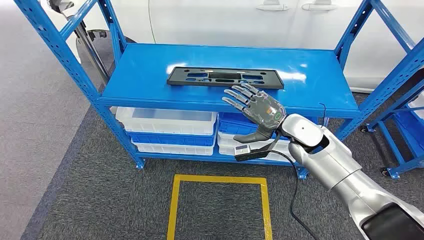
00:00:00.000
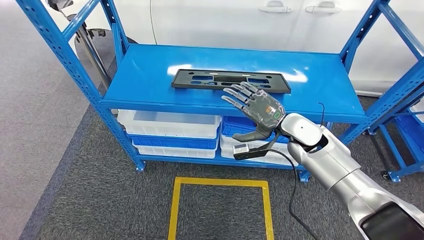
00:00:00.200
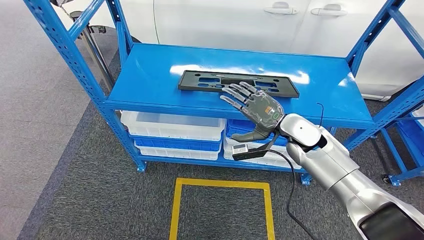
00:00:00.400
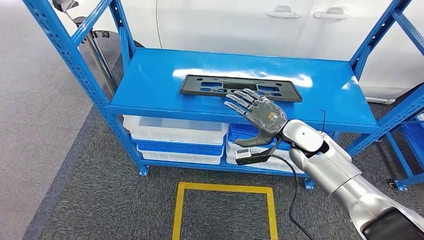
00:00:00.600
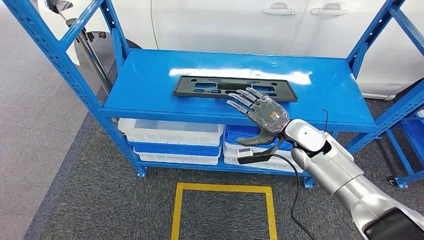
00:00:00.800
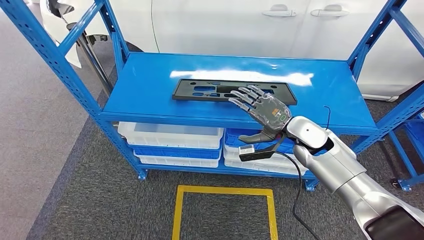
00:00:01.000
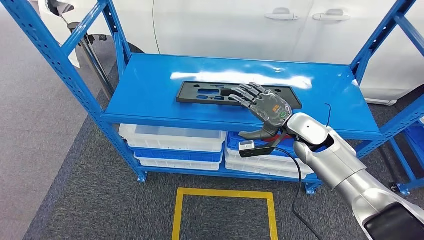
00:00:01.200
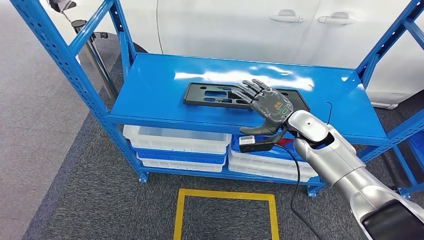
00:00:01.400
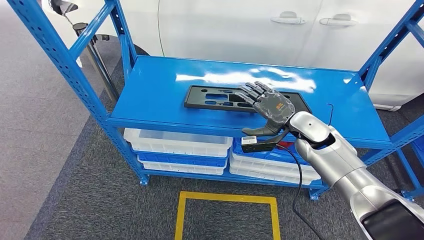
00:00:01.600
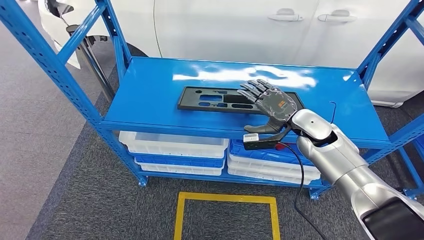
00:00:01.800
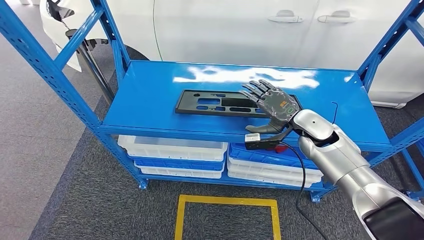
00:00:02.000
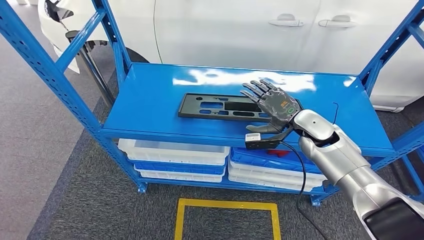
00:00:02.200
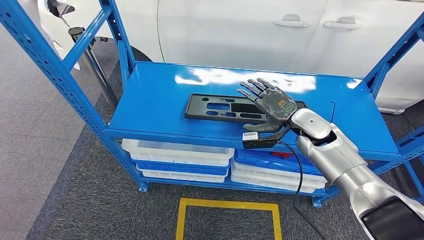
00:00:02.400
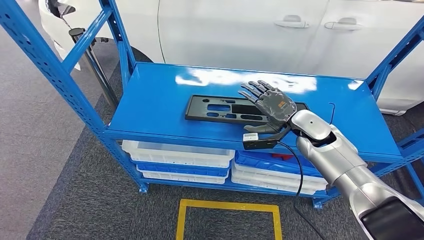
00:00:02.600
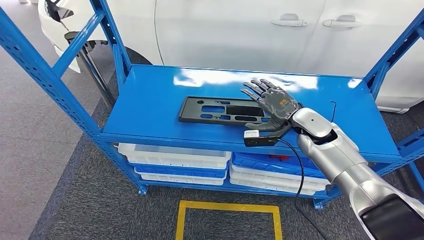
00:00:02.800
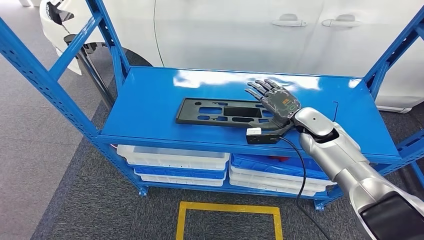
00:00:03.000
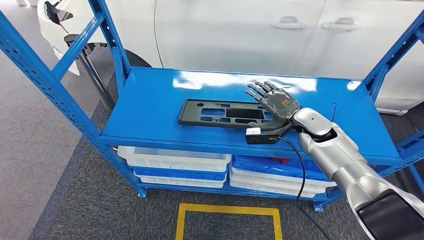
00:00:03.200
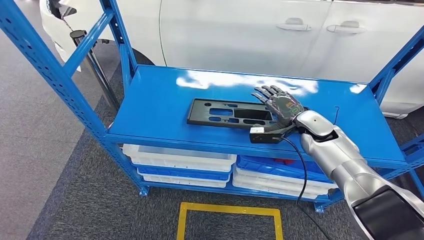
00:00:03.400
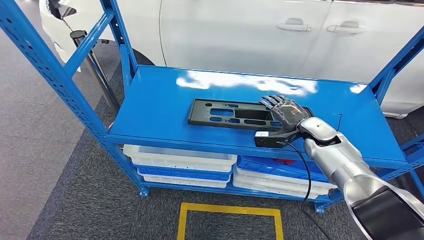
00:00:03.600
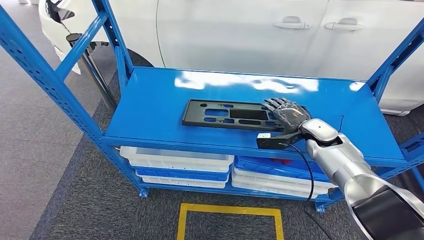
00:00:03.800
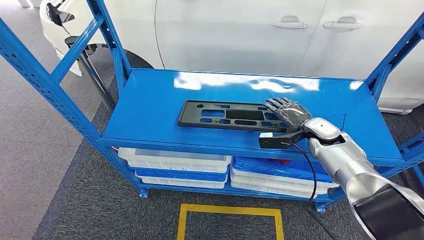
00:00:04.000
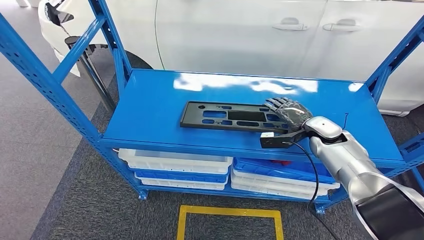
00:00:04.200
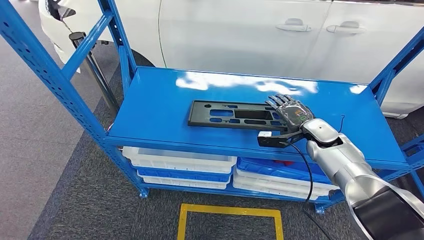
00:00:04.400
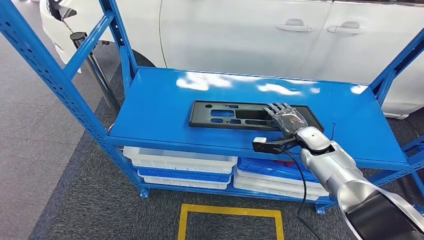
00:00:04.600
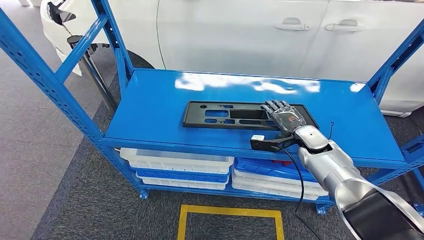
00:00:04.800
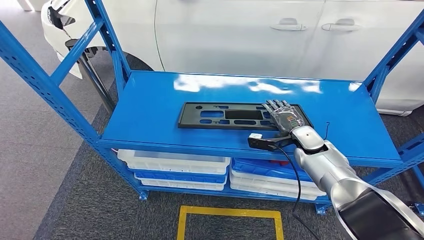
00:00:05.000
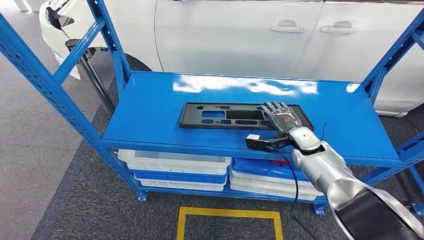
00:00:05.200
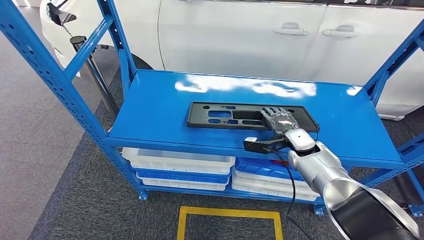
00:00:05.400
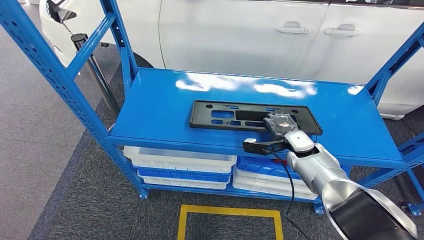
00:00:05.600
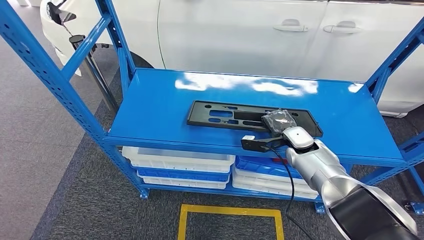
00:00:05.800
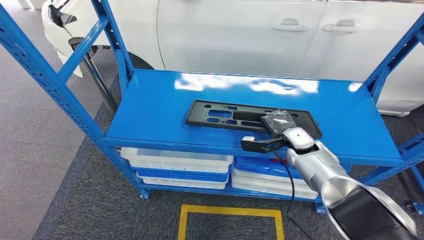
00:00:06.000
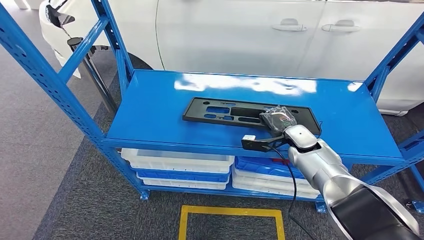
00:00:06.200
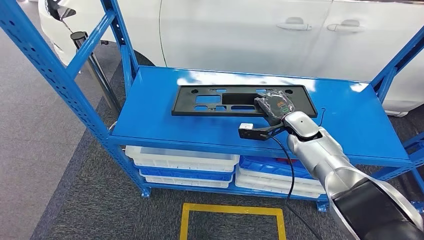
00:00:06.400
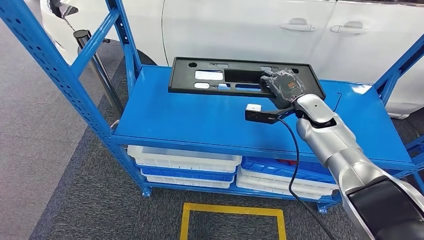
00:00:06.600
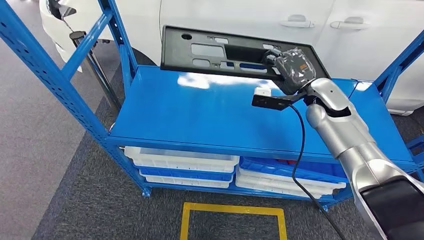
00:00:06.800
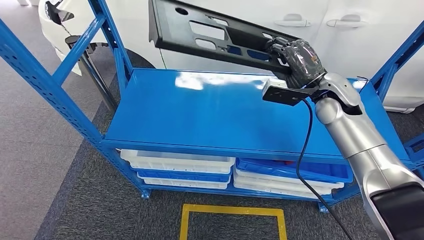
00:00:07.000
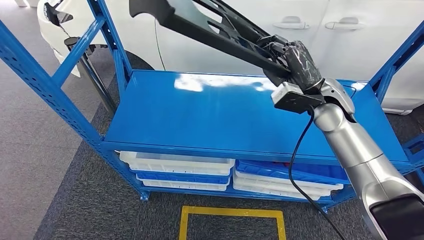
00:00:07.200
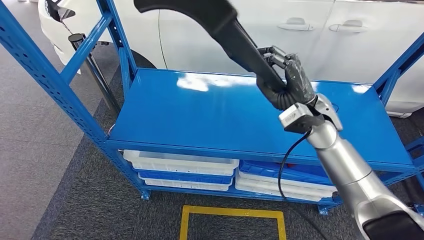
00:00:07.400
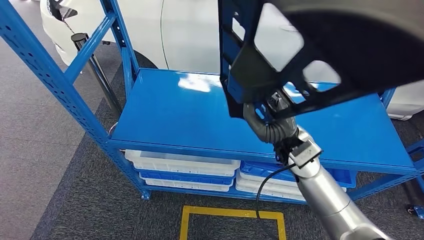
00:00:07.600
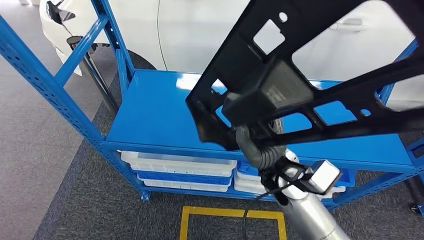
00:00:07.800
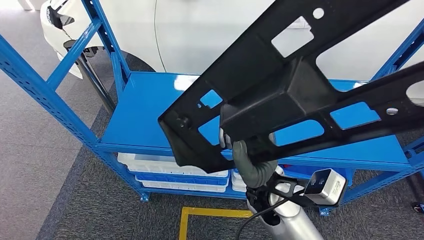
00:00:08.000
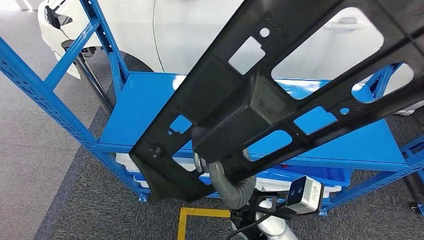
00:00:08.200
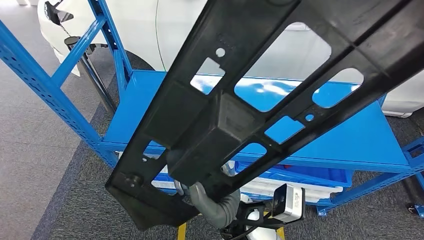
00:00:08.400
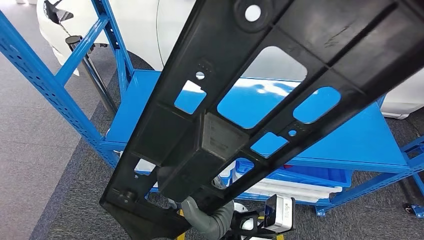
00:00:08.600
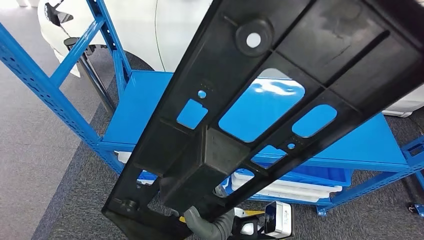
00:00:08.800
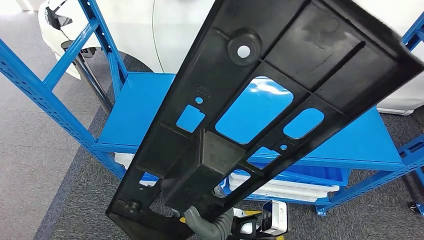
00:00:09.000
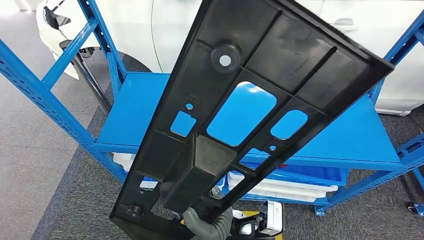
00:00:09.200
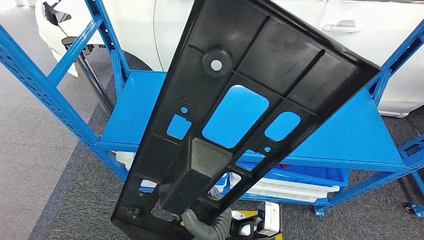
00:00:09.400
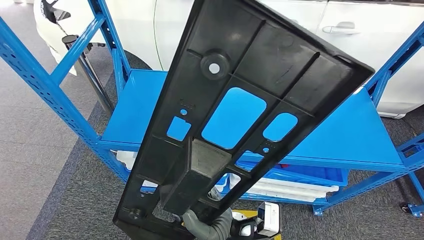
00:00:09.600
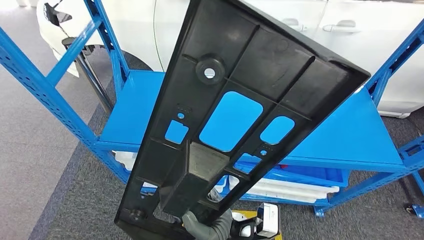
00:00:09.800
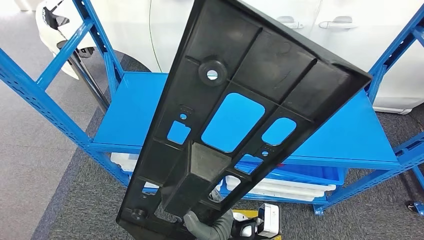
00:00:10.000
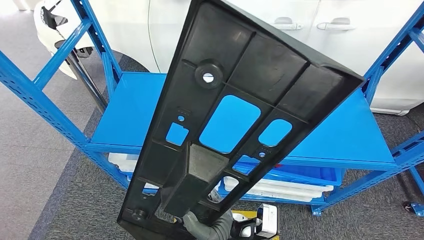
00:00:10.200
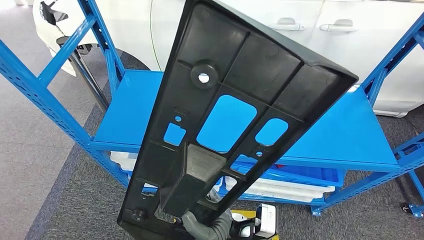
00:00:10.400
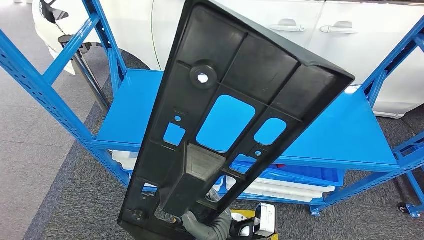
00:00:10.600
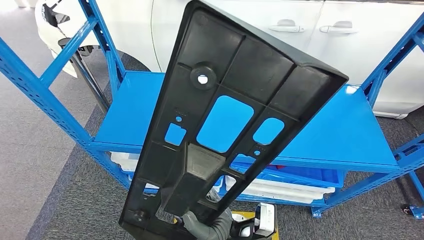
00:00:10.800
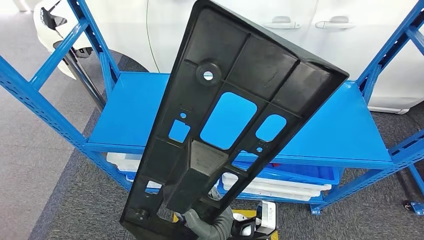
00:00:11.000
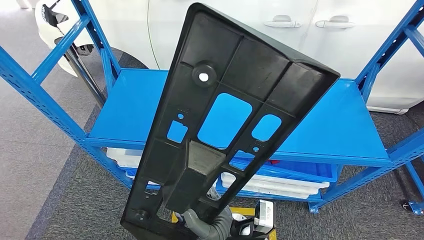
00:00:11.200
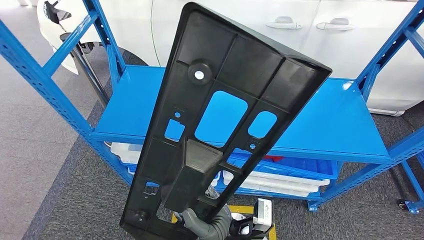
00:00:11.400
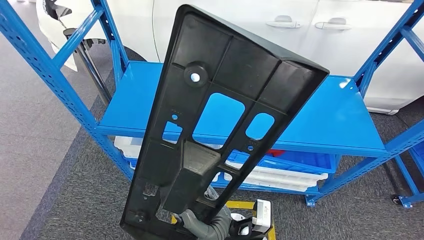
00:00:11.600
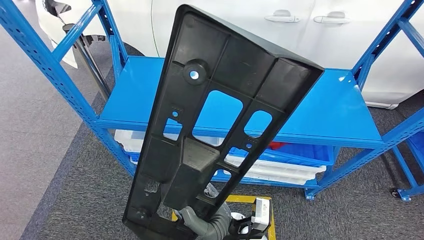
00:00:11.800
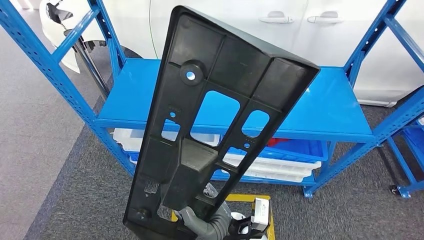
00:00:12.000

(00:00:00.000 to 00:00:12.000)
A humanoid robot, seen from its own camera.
Step, 00:00:00.000 - 00:00:06.400: Pick up the large material from the shelf.

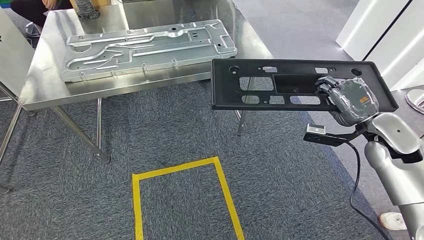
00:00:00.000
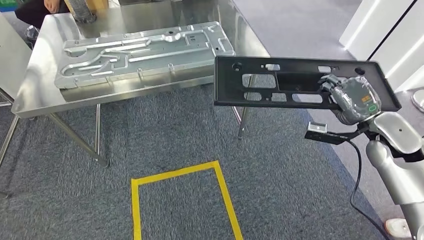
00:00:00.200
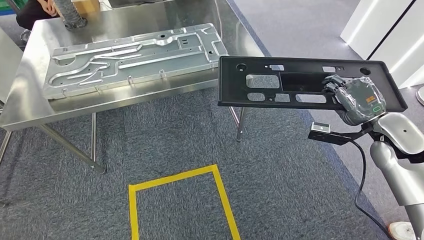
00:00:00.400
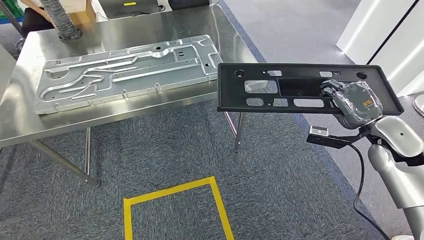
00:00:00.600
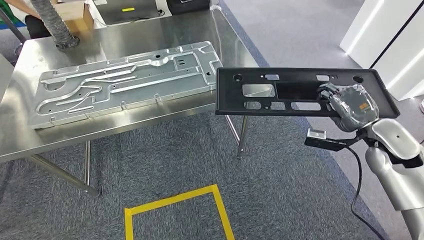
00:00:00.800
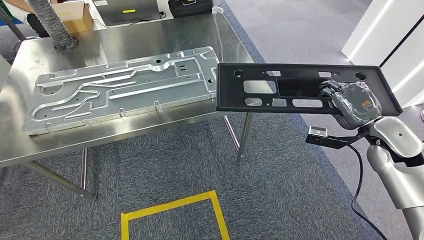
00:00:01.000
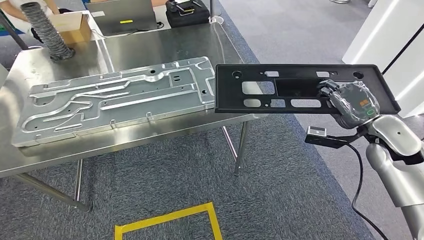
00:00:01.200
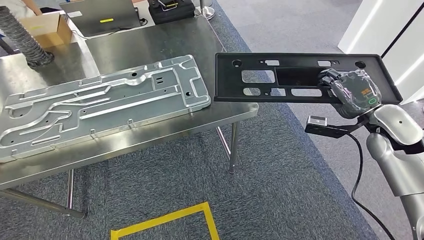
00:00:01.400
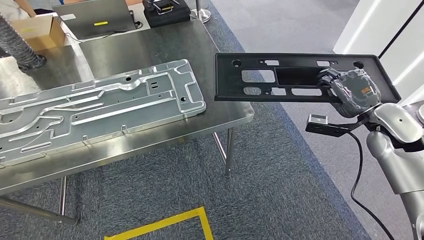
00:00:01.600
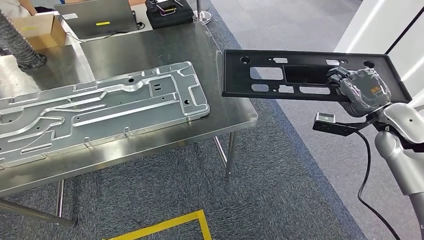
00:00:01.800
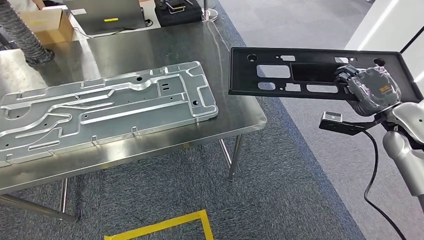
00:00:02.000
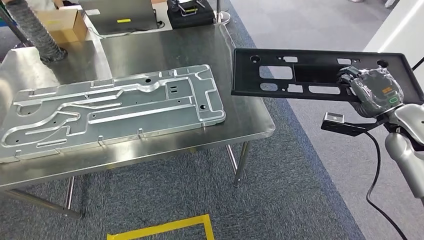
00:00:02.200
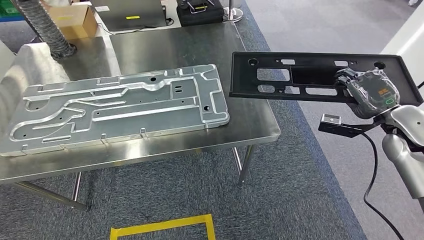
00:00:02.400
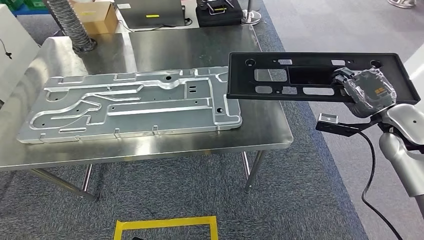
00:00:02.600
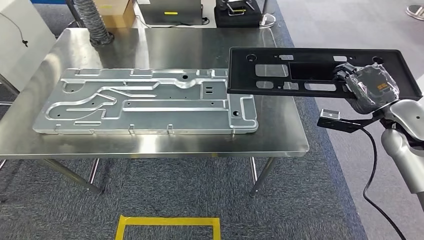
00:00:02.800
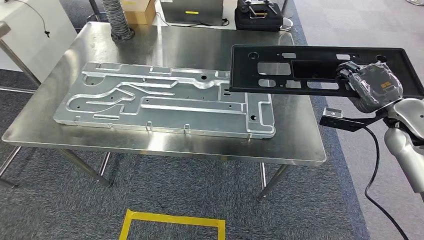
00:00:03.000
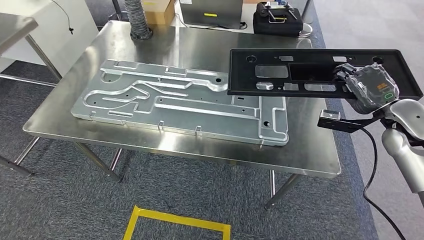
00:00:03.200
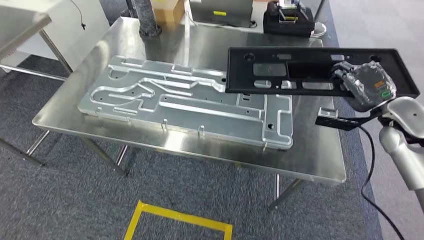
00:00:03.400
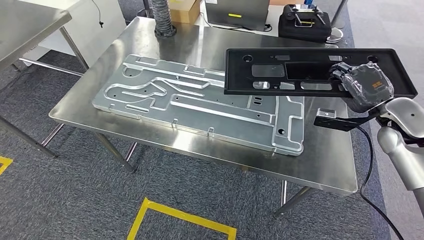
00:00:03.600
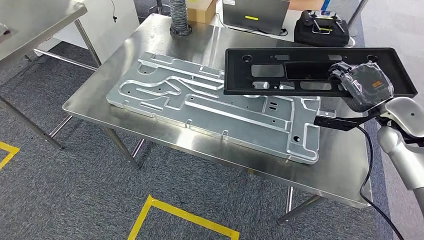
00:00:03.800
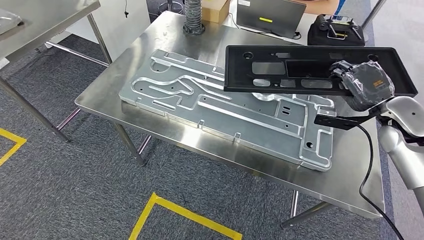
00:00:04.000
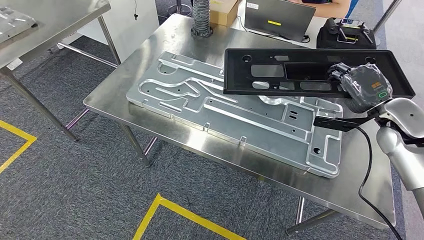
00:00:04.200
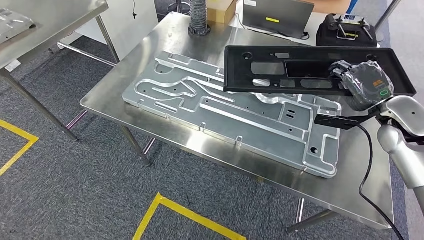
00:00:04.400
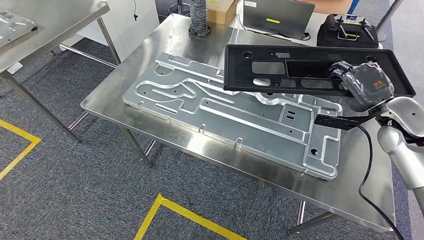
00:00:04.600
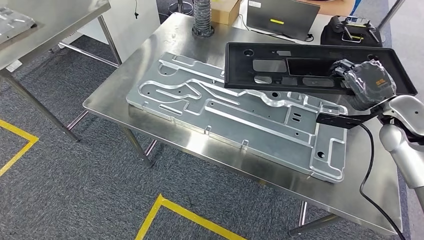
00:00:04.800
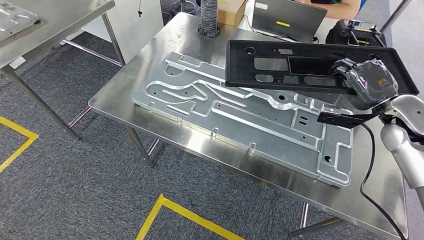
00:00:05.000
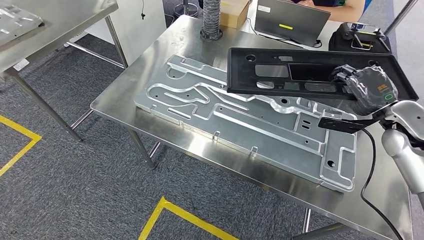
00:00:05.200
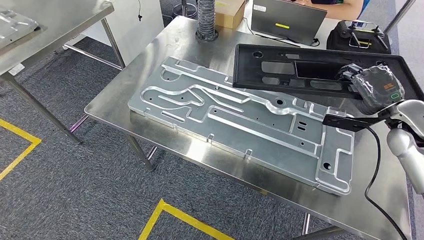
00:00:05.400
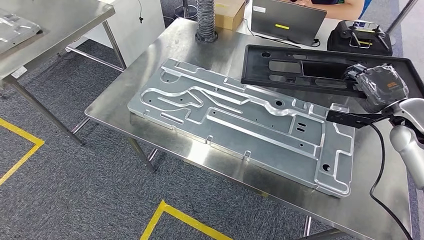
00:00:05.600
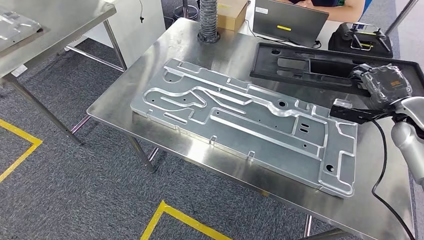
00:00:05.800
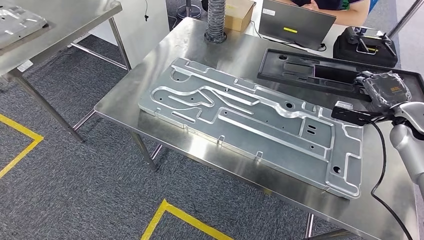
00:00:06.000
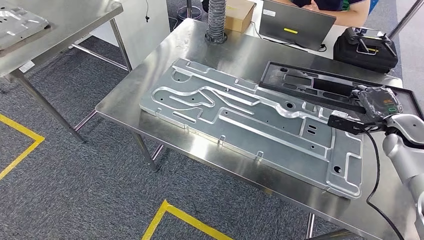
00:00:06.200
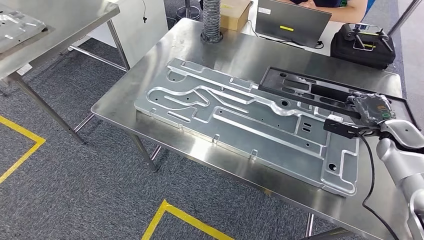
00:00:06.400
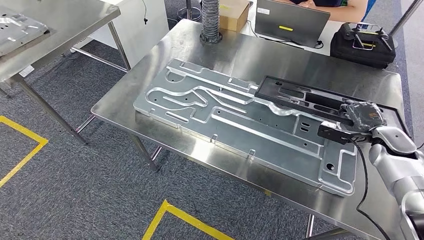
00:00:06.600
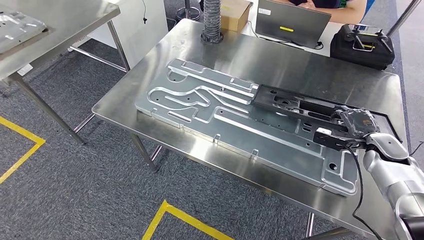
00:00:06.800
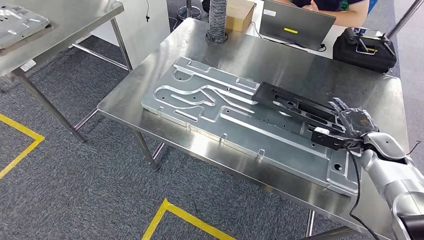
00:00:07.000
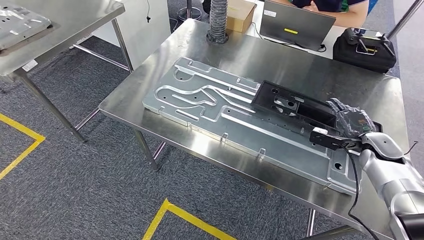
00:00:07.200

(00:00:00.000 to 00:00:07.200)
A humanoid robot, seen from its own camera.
Step, 00:00:00.000 - 00:00:03.000: Move the large material to the workbench.
